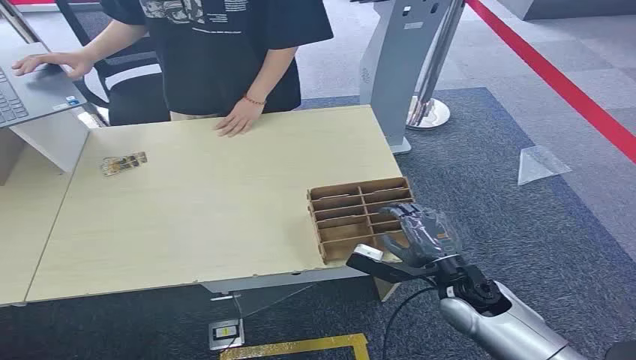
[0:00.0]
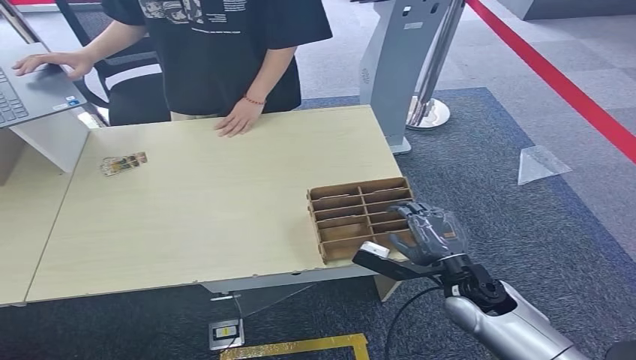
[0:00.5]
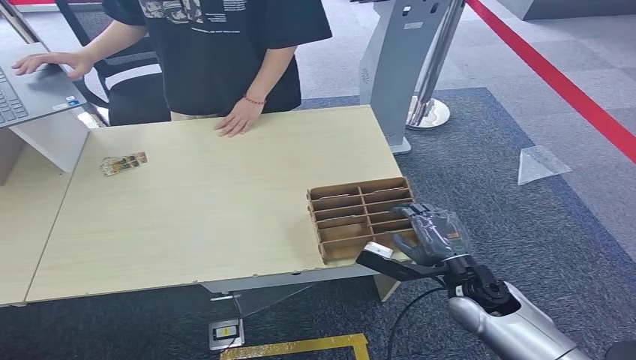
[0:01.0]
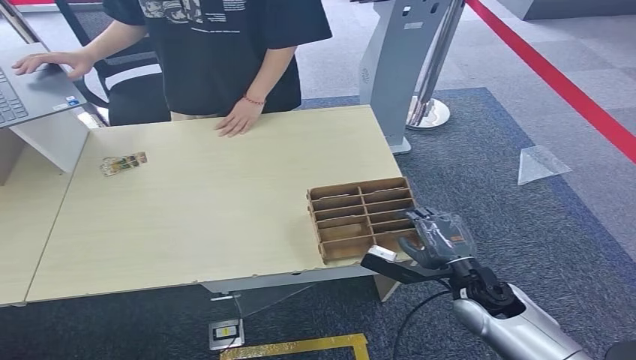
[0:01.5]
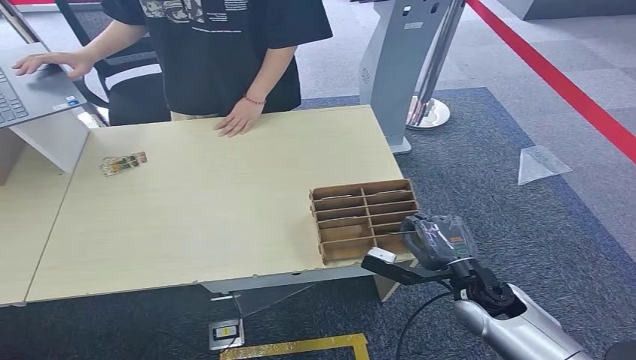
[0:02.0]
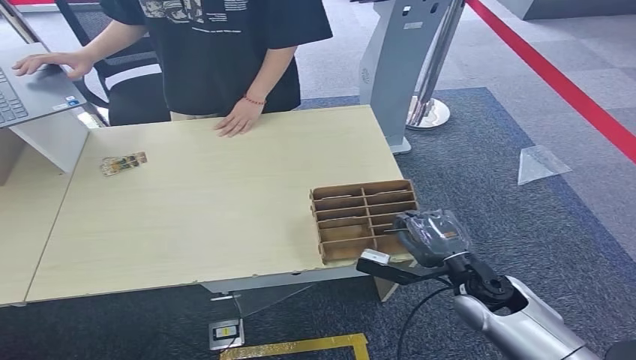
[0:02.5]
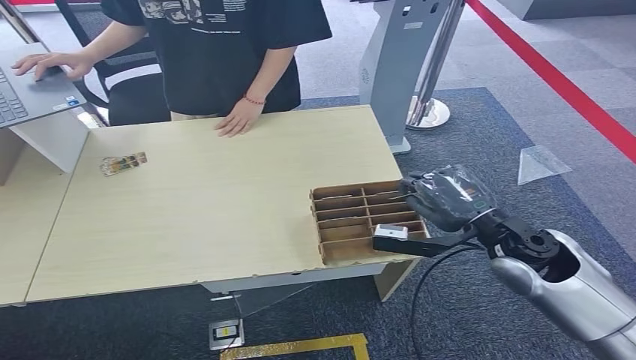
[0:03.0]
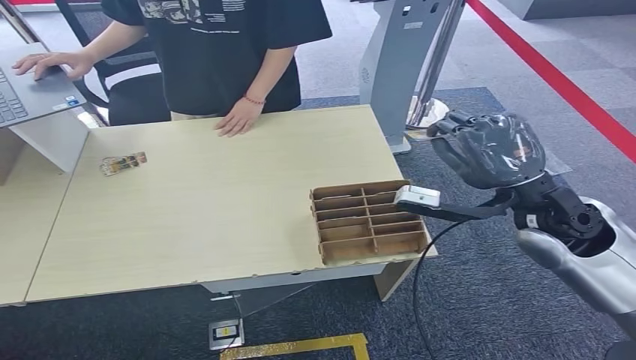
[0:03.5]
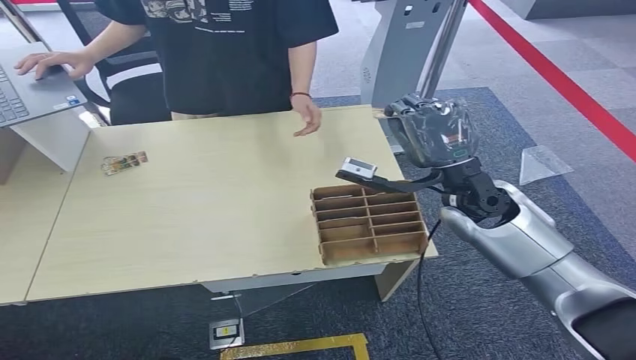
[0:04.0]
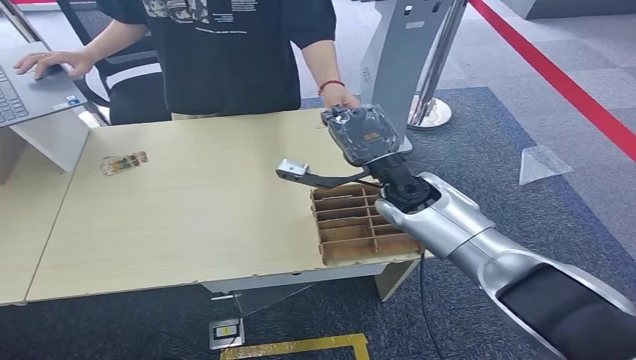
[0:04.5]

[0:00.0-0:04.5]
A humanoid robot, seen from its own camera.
Step, 0:00.0 to 0:03.0: Pick up the room card from the card holder.
Step, 0:03.5 to 0:04.5: Hand the room card to the target.
0:02.0 to 0:04.5: The right hand goes some 25 cm forward, upward and to the left.
